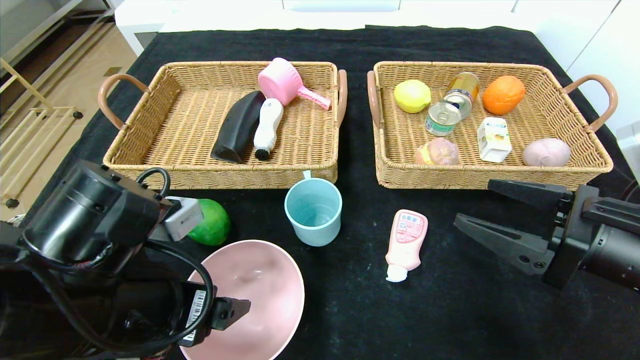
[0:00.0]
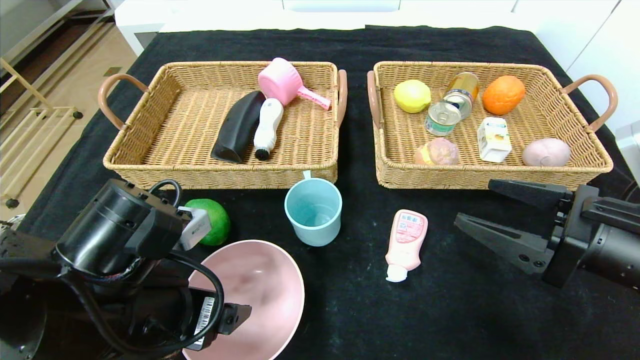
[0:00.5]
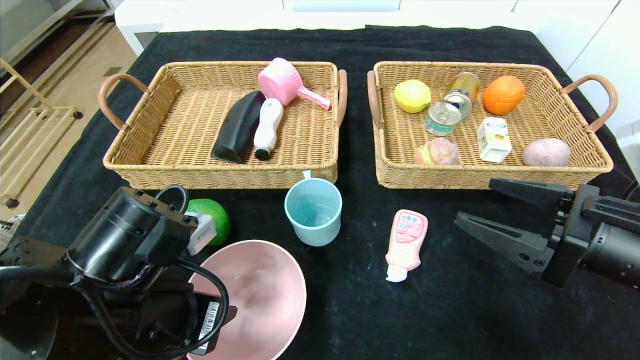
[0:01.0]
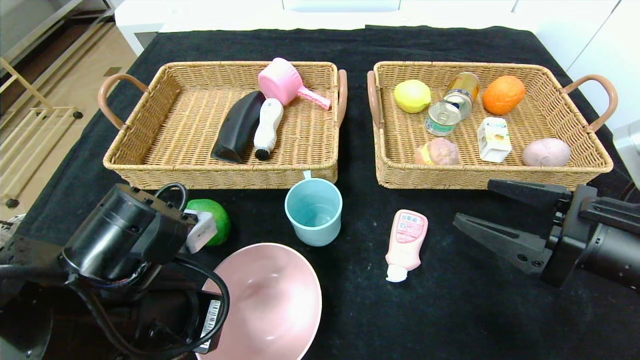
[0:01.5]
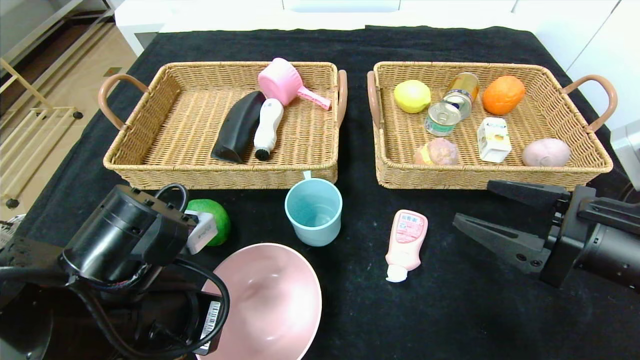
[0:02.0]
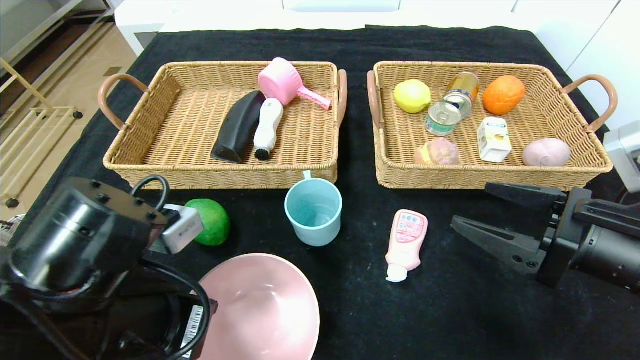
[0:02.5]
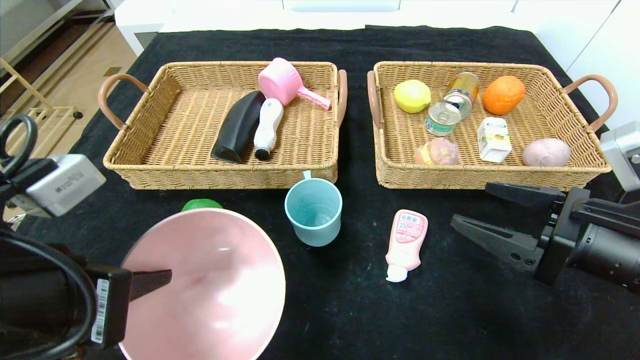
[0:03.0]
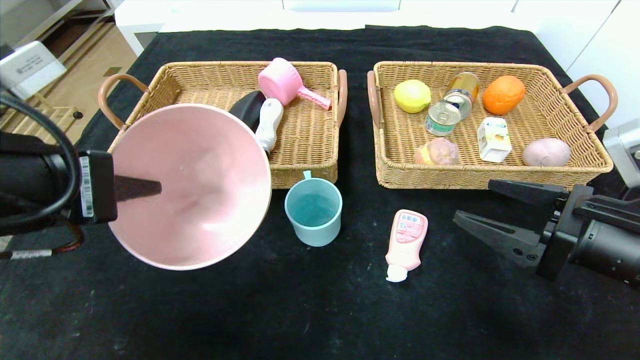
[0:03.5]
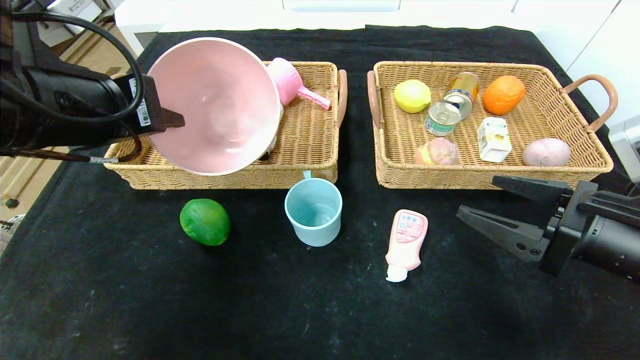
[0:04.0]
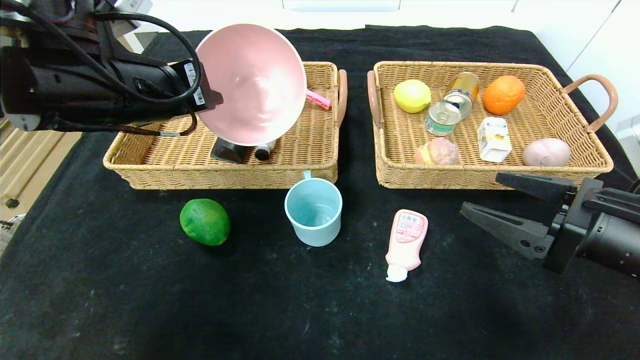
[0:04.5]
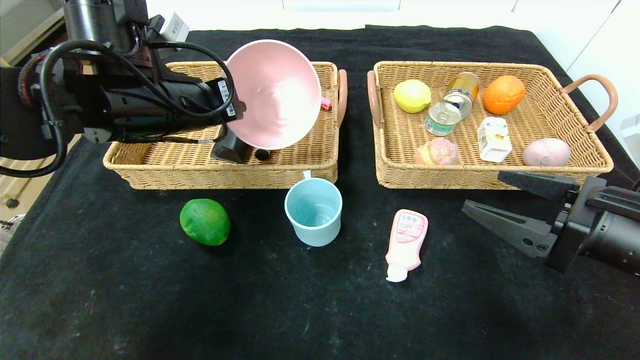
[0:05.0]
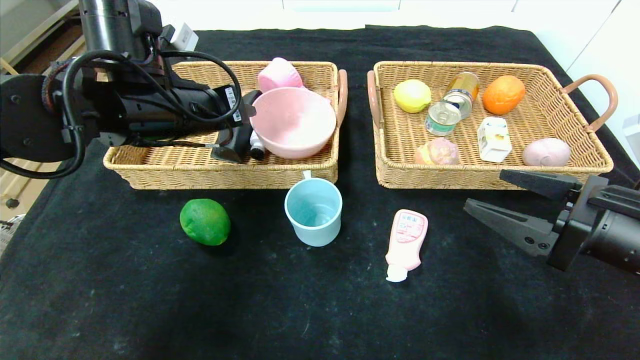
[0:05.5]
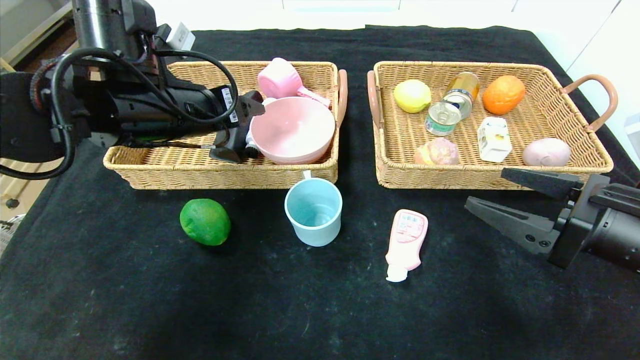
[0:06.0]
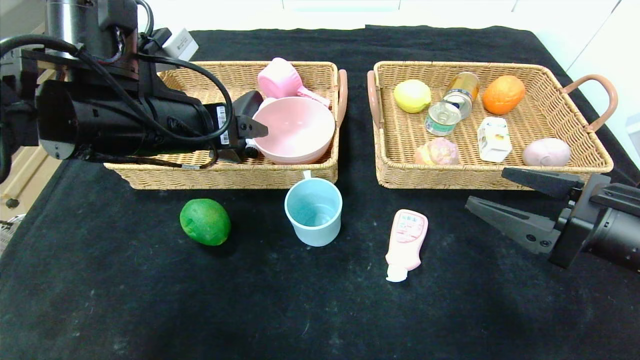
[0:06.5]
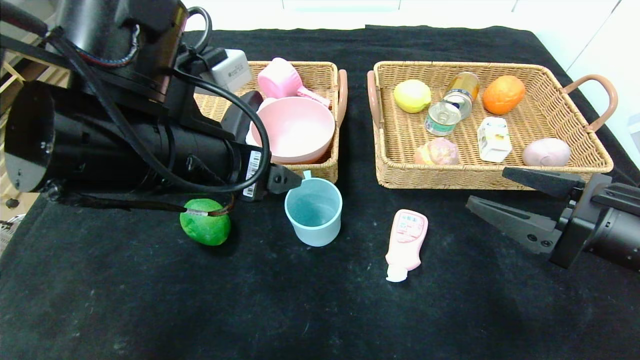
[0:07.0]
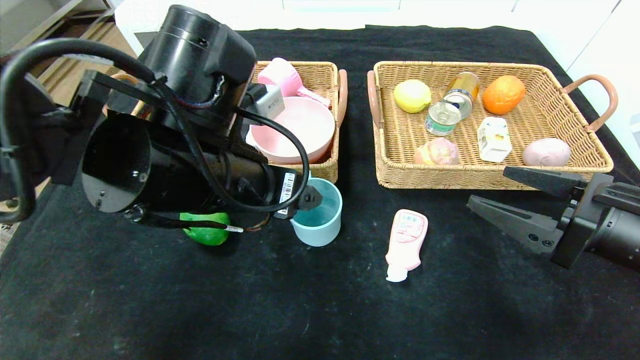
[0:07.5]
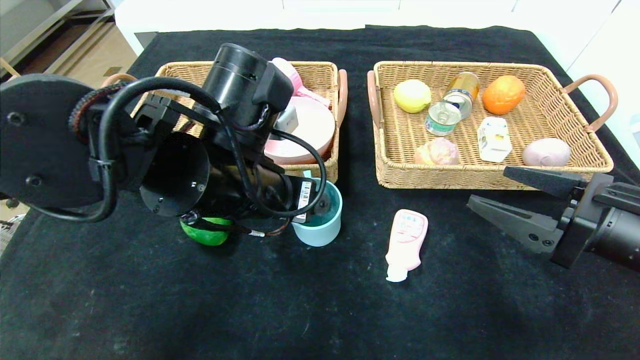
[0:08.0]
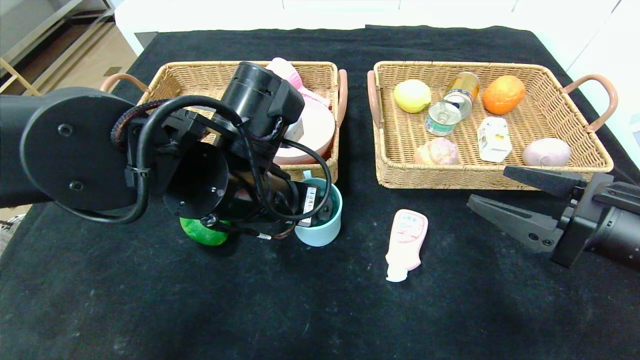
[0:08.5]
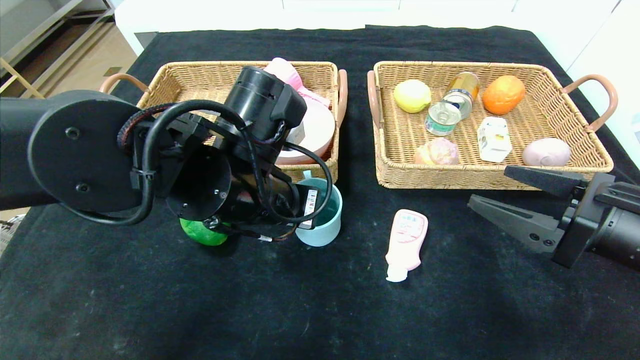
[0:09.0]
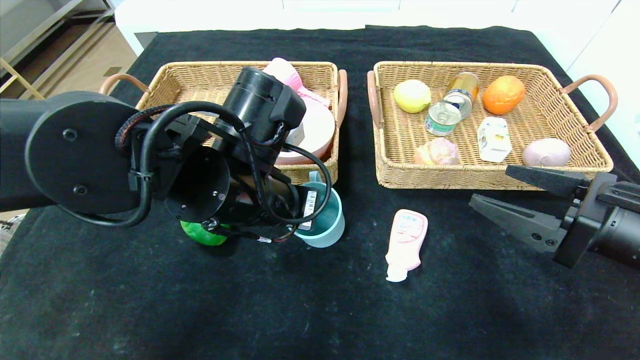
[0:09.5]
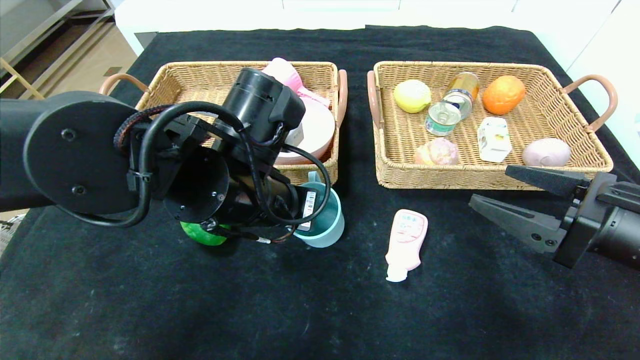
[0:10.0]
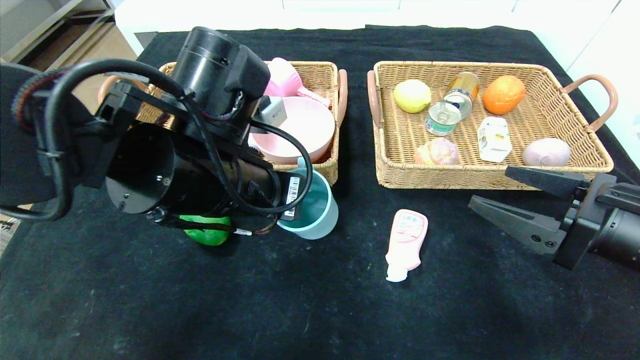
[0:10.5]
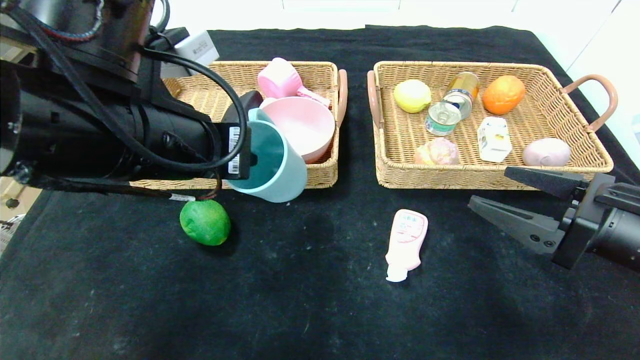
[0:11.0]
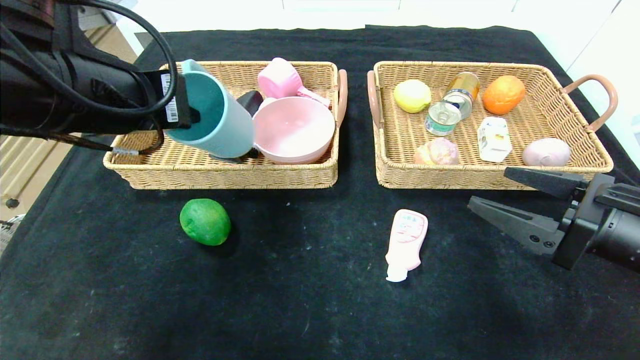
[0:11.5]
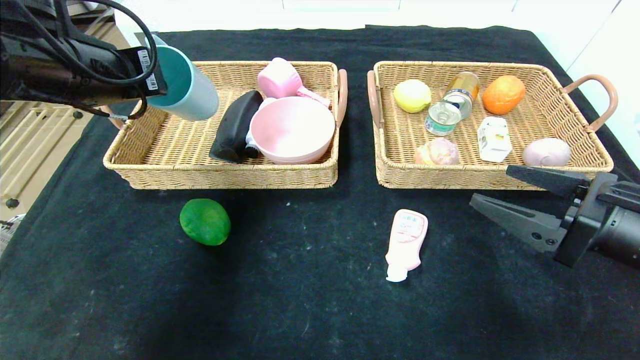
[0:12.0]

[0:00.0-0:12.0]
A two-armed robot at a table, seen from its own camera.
Step, 0:00.0 to 0:05.5: Grasp the pink bowl and put it in the left basket.
0:00.0 to 0:02.0: The left gripper closes its fingers.
0:02.0 to 0:04.0: The left gripper is displaced upward and forward by approximately 15 cm.
0:04.0 to 0:06.0: The left gripper goes approximately 10 cm forward, and opens.
0:06.0 to 0:08.0: The left gripper goes some 10 cm to the right and backward.
0:08.0 to 0:10.0: The left gripper closes.
0:10.0 to 0:12.0: The left gripper heads to the left and upward, covering some 20 cm.

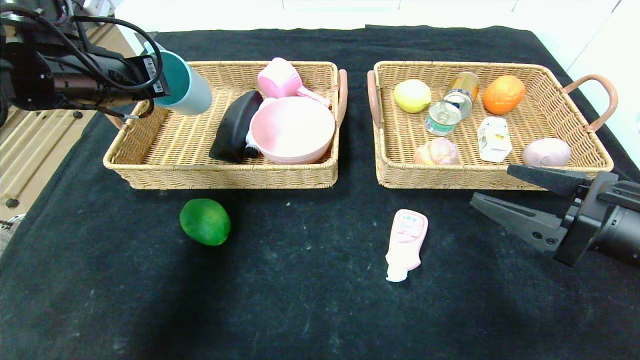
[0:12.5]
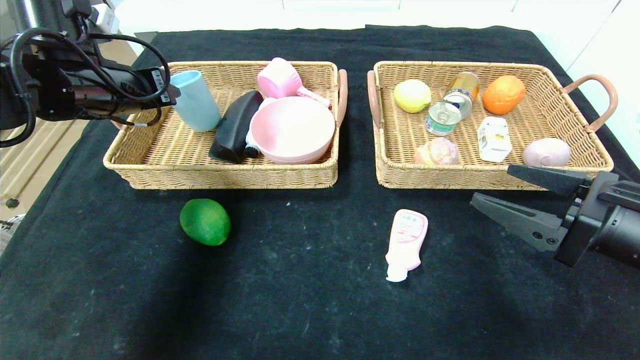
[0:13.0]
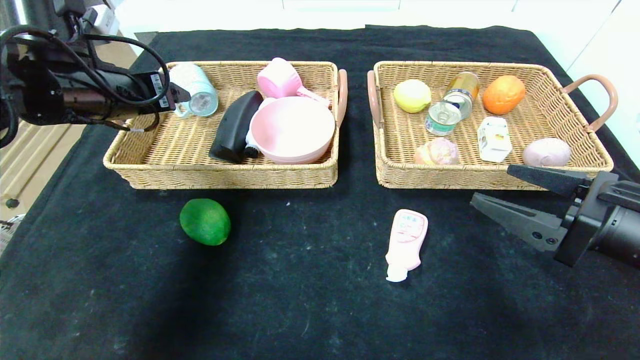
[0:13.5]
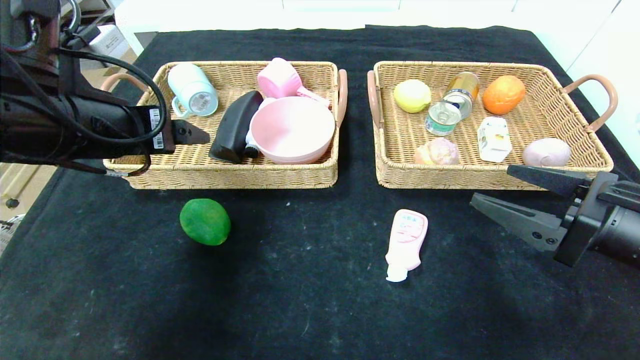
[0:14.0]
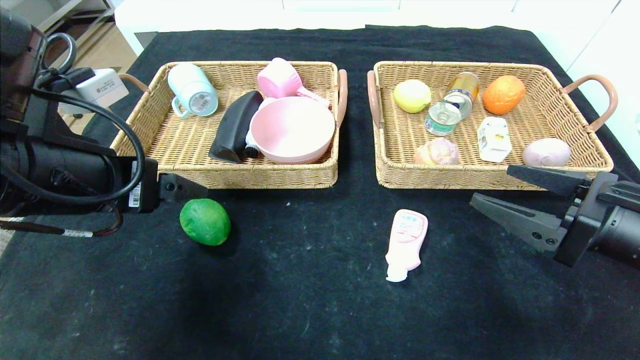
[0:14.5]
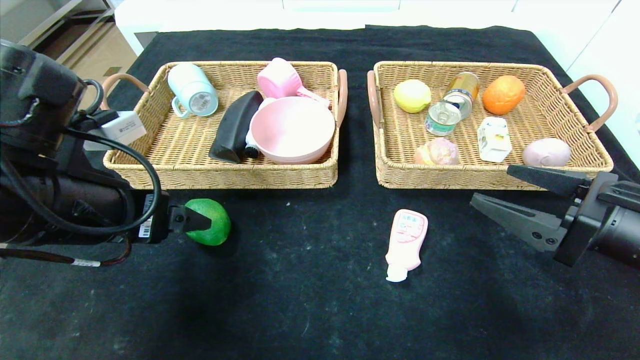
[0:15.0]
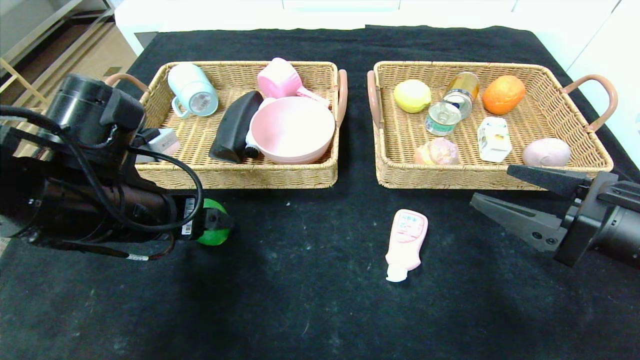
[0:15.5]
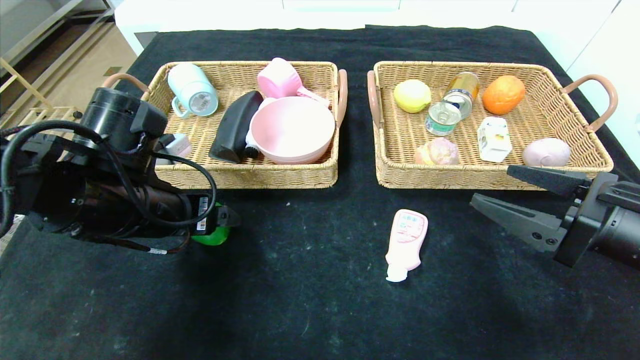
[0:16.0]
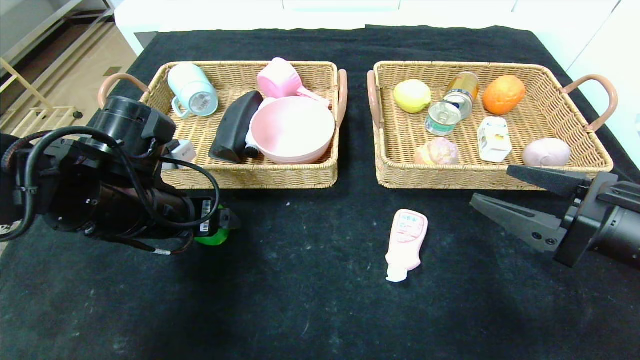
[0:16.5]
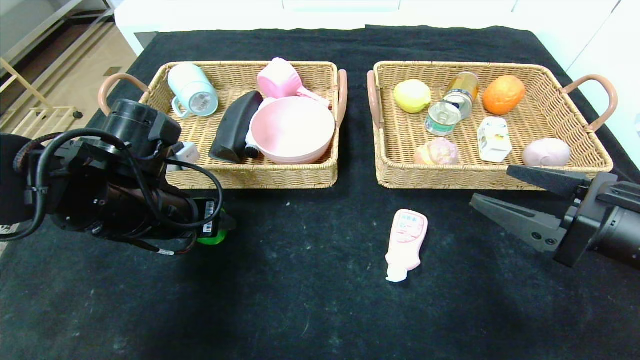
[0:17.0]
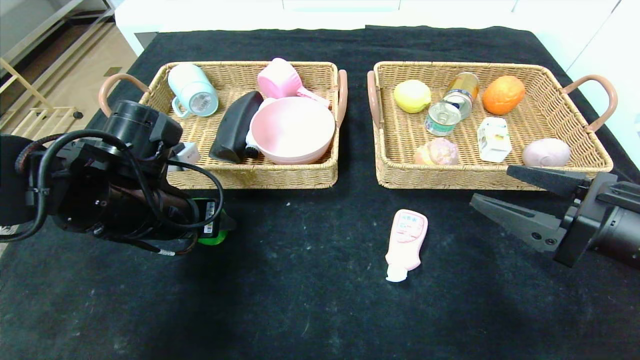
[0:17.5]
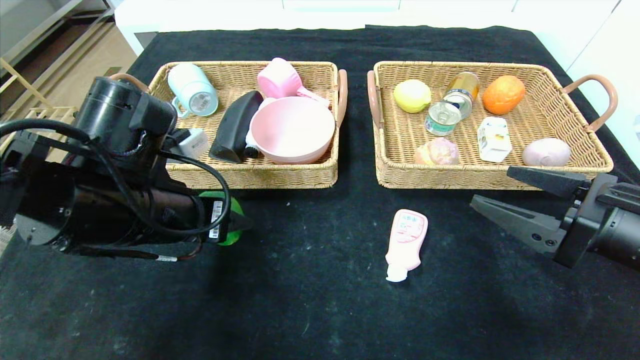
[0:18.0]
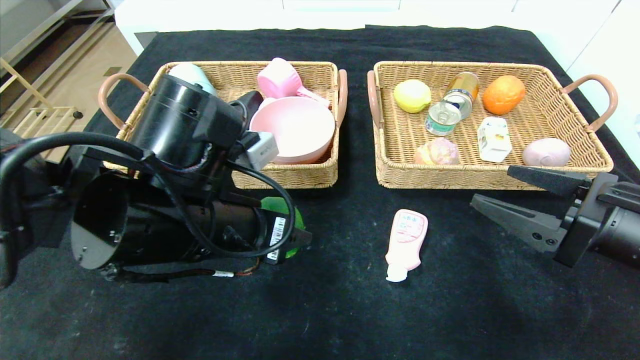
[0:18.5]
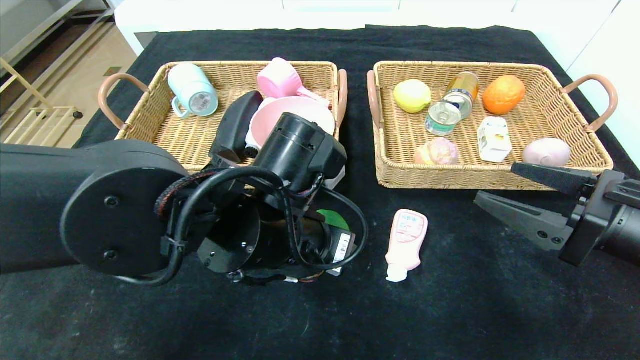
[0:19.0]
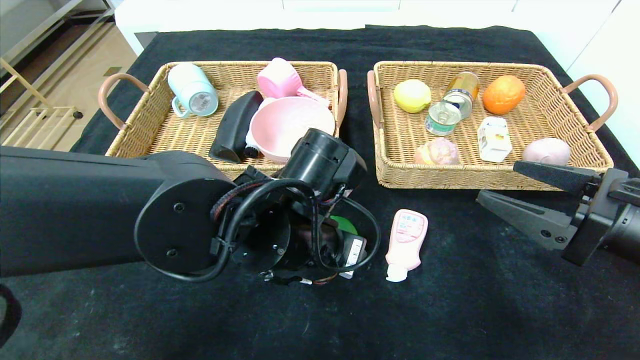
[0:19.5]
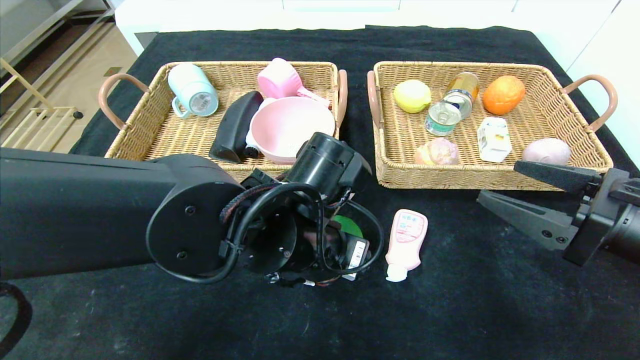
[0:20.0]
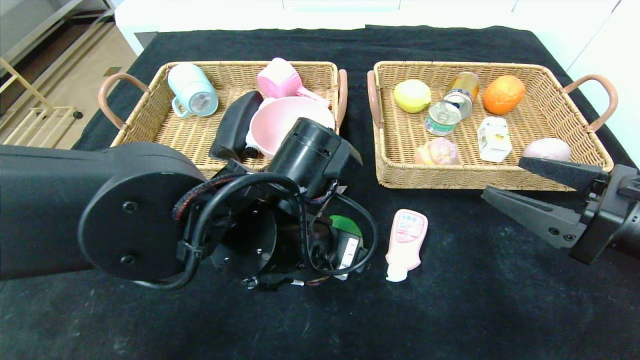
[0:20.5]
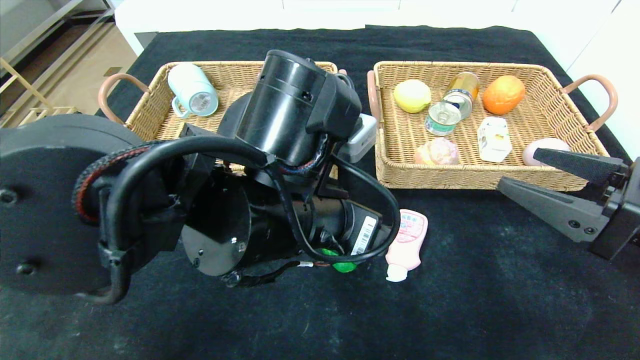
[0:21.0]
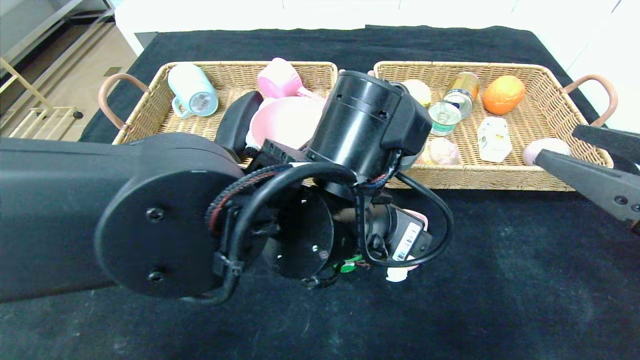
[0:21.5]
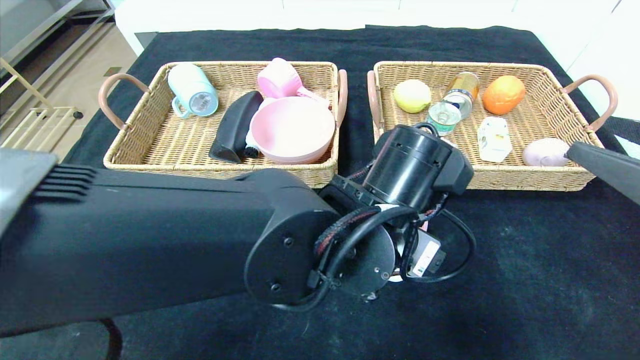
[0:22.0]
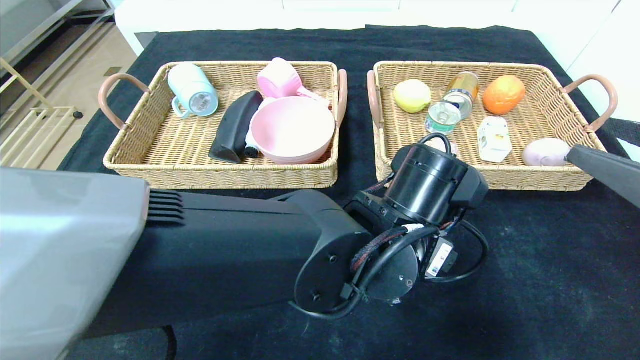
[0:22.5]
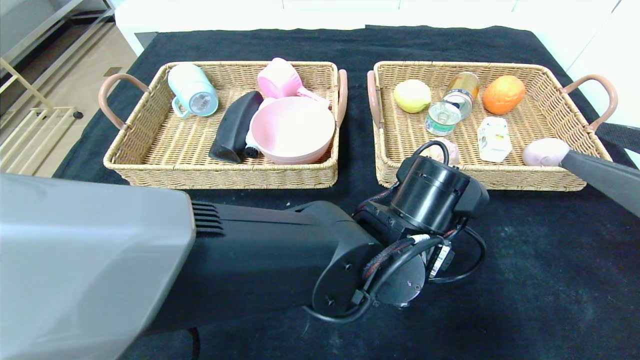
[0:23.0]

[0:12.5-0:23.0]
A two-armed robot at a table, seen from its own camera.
Step, 0:13.5 to 0:20.5: Place the green lemon in the center of the table.
0:12.5 to 0:14.5: The left gripper heads backward, covering some 15 cm, and opens.
0:14.5 to 0:16.5: The left gripper heads downward and forward, covering roughly 10 cm.
0:16.5 to 0:19.0: The left gripper shifts some 15 cm to the right, and closes.
0:21.0 to 0:23.0: The left gripper shifts some 15 cm to the right and downward.
